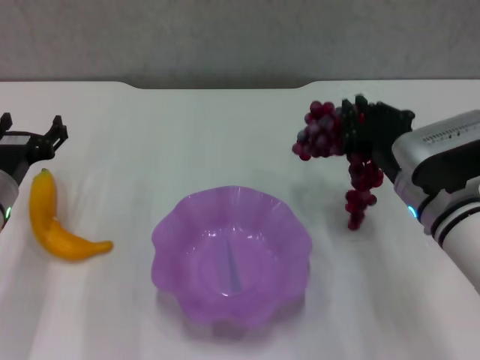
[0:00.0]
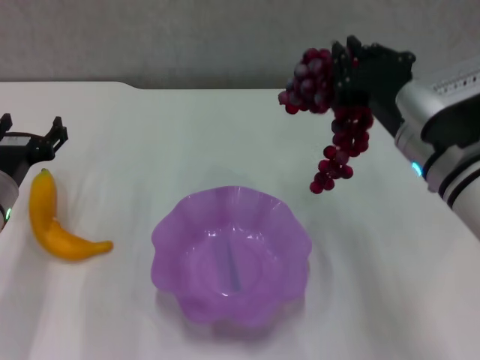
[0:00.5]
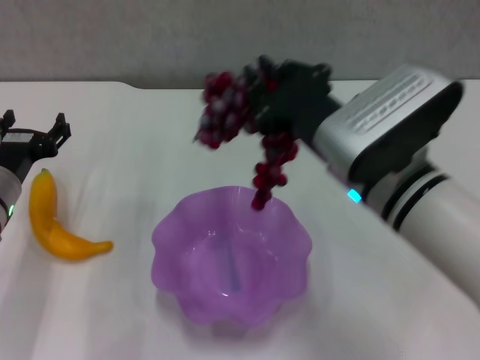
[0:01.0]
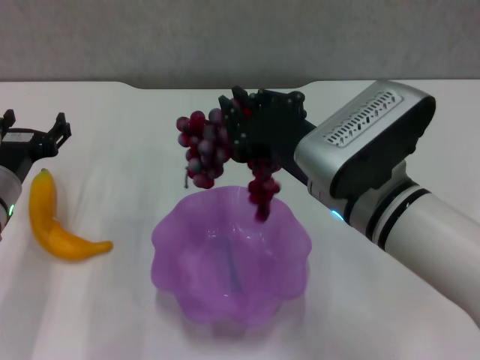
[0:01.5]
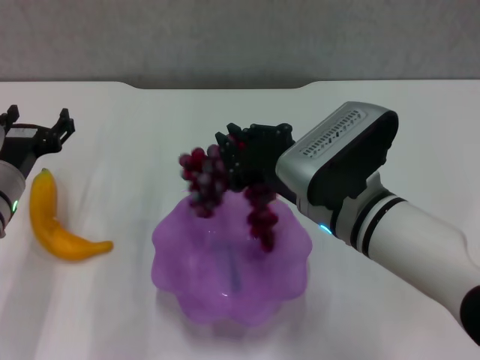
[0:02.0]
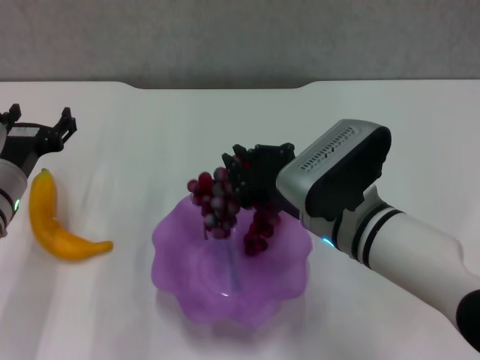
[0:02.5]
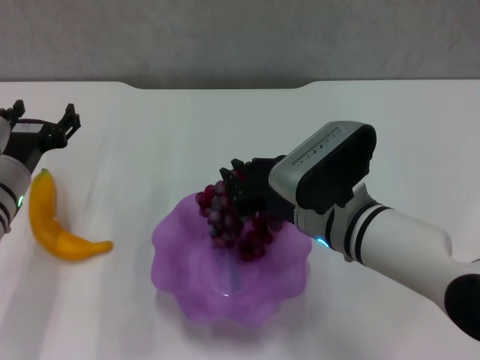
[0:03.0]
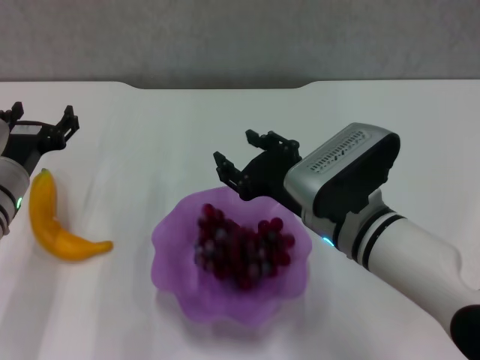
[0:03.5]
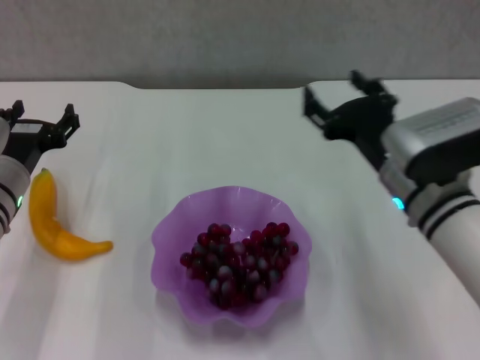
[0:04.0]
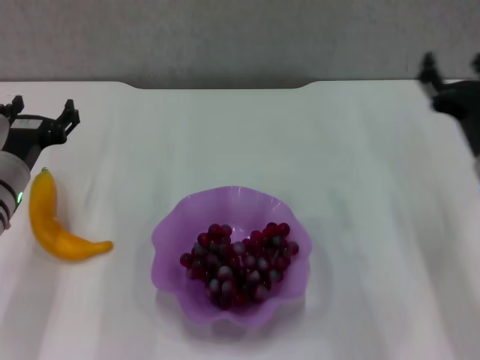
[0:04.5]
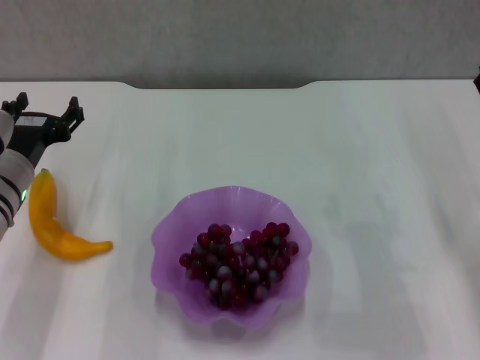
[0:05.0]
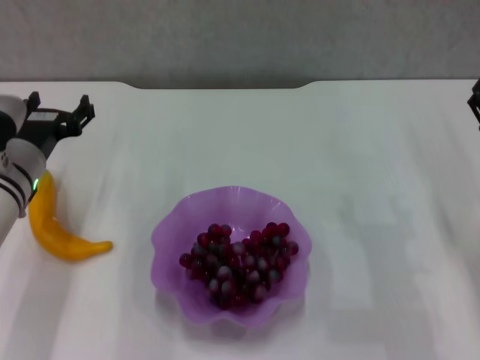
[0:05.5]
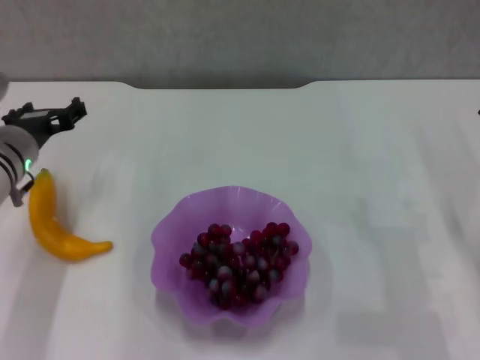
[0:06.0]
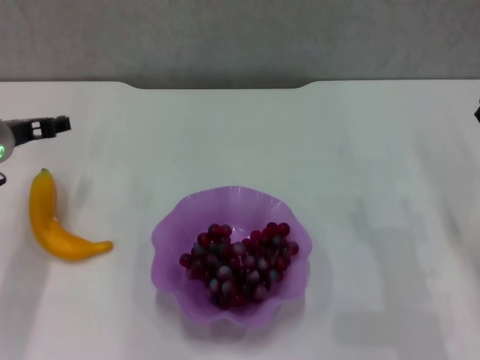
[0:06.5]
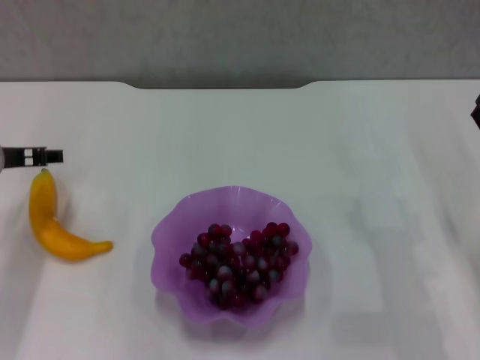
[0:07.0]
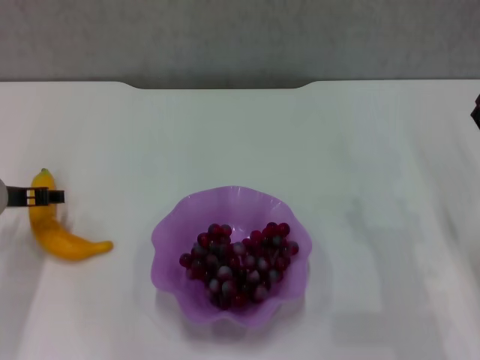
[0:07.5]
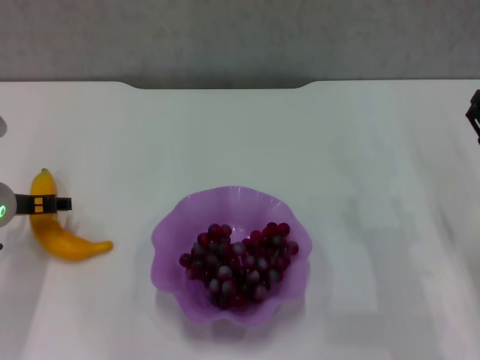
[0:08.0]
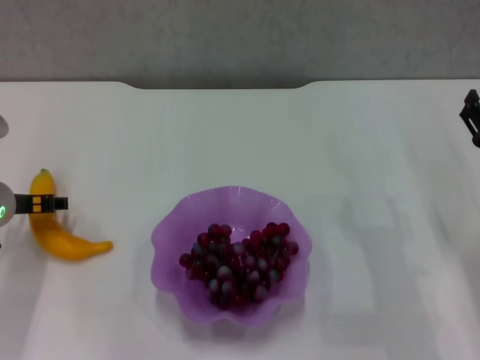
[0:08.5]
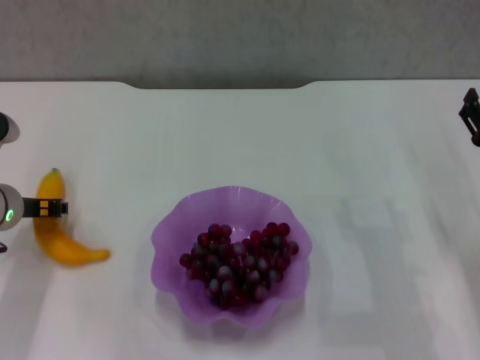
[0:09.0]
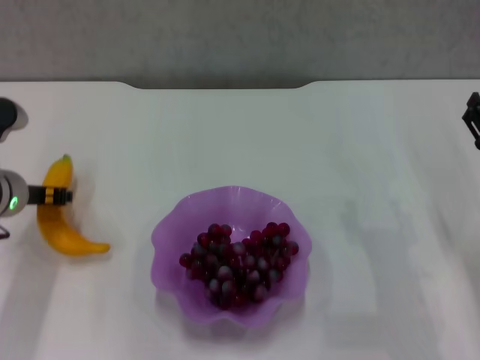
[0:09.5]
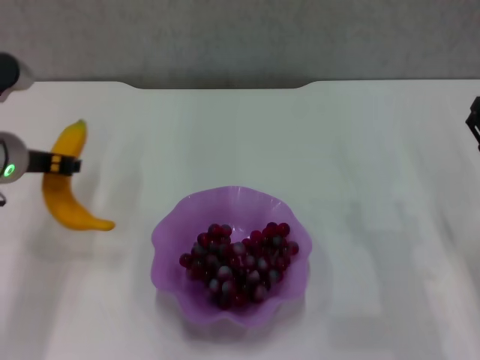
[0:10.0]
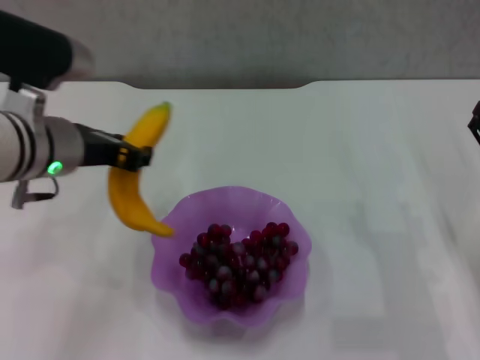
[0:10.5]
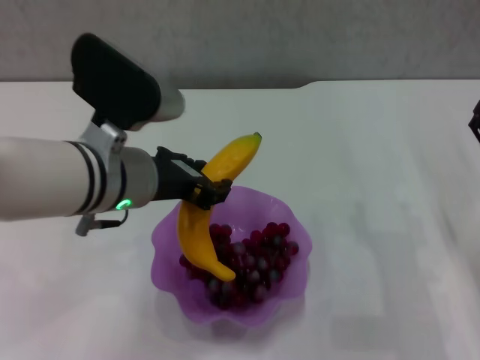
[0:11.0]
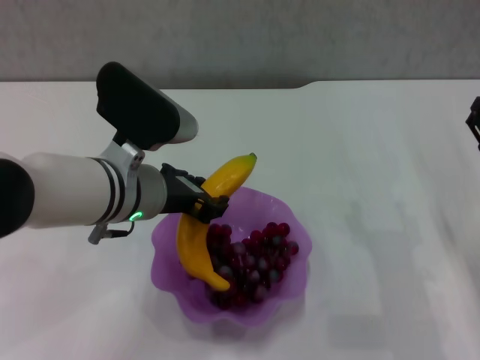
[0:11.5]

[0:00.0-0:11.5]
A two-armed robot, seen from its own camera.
Step, 0:00.0 to 0:03.0: Place the grape in the purple plate with right gripper.
Step, 0:03.5 to 0:09.0: Grasp the banana with left gripper.
0:00.0 to 0:02.0: The right gripper shifts approximately 10 cm to the left.
0:02.0 to 0:04.0: The right gripper heads to the right, covering roughly 10 cm, and opens up.
0:04.0 to 0:06.0: The right gripper heads to the right, covering roughly 15 cm.
0:07.5 to 0:09.5: The left gripper closes its fingers.
0:09.5 to 0:11.5: The left gripper travels to the right by some 15 cm.

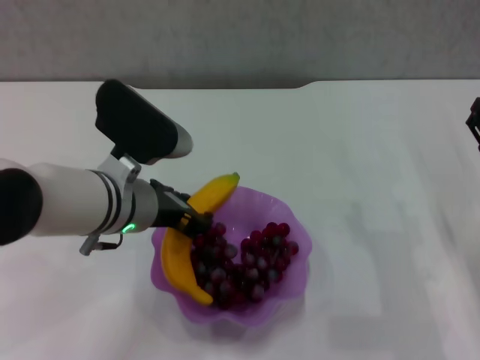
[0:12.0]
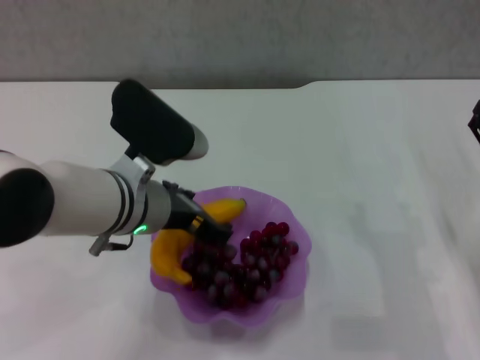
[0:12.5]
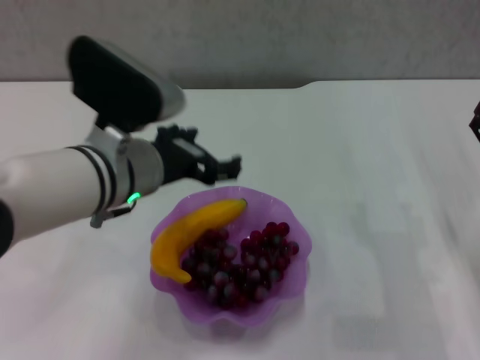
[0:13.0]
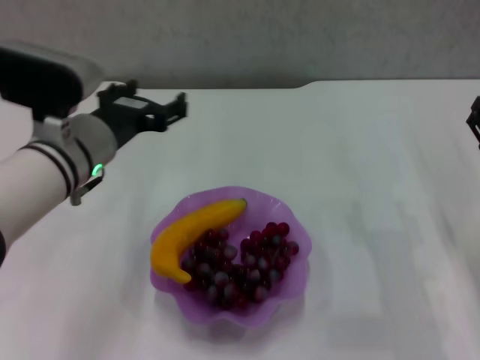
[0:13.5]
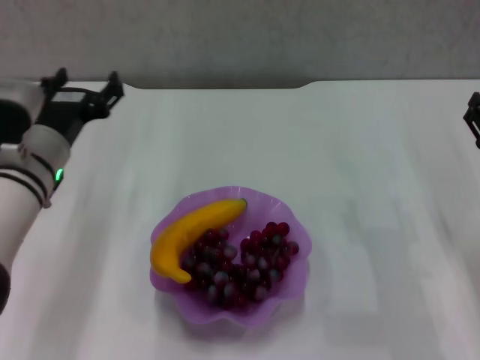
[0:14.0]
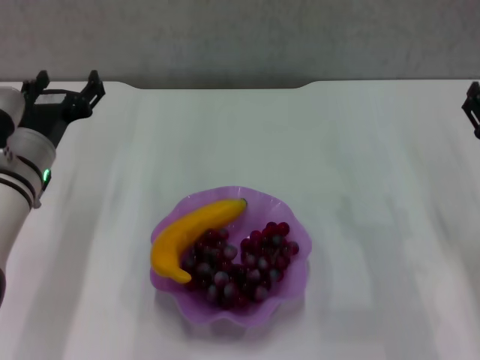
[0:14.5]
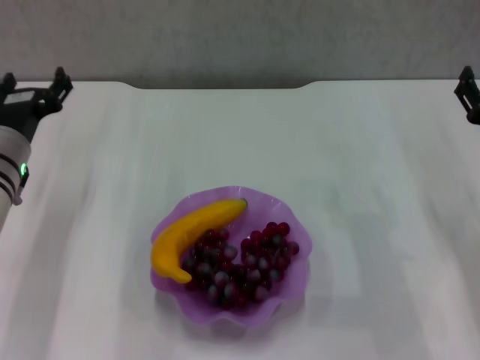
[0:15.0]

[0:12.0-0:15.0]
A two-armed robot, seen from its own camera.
0:12.0 to 0:13.5: The left gripper opens up.
0:13.5 to 0:15.0: The left gripper is displaced to the left and downward by about 10 cm.
